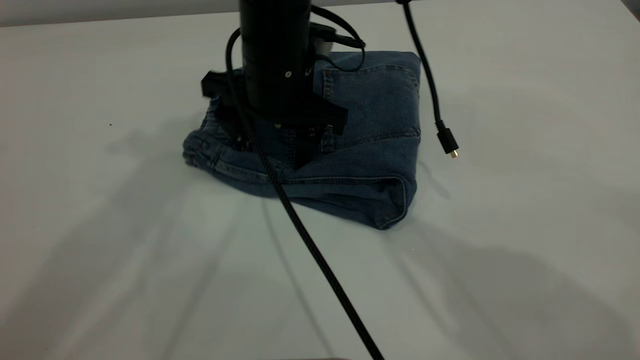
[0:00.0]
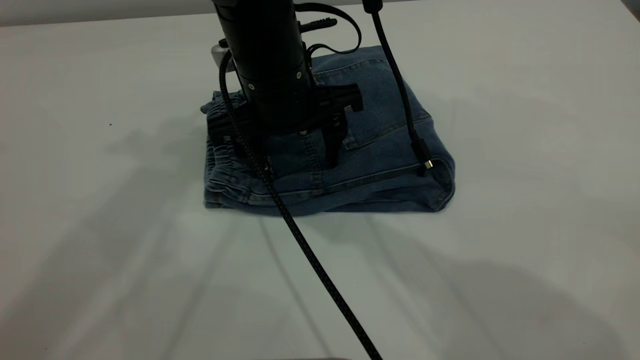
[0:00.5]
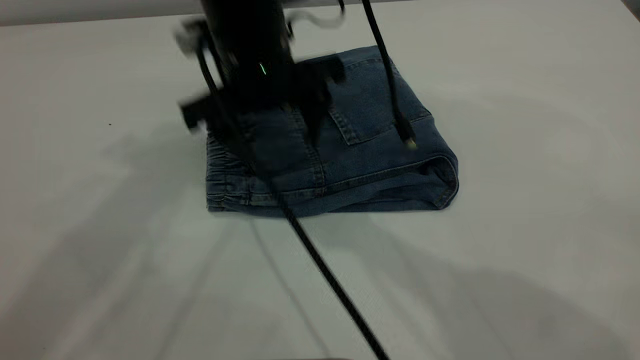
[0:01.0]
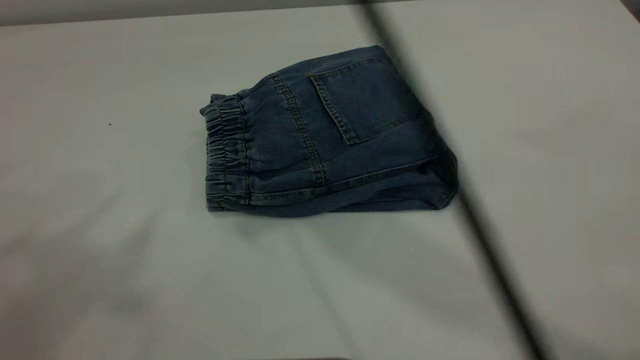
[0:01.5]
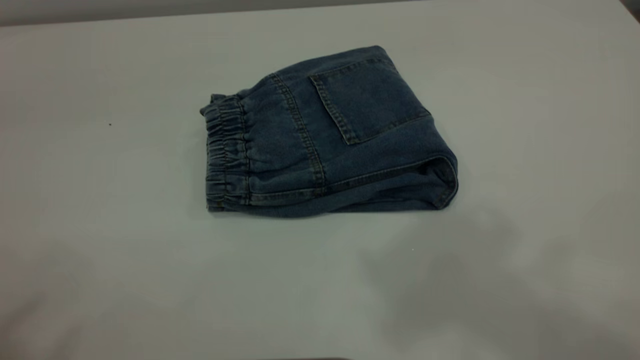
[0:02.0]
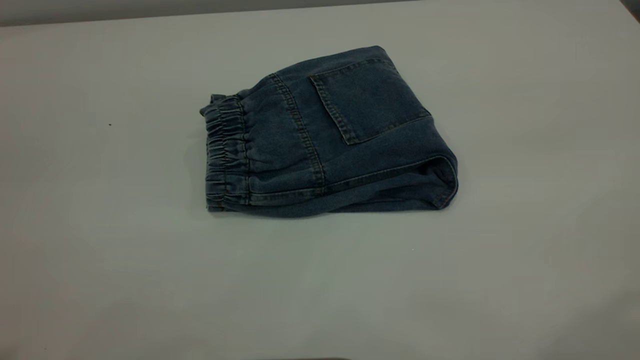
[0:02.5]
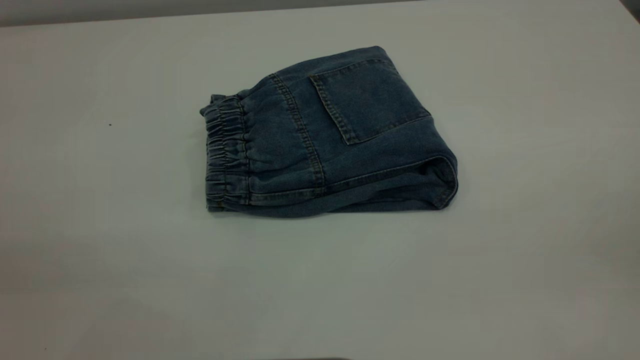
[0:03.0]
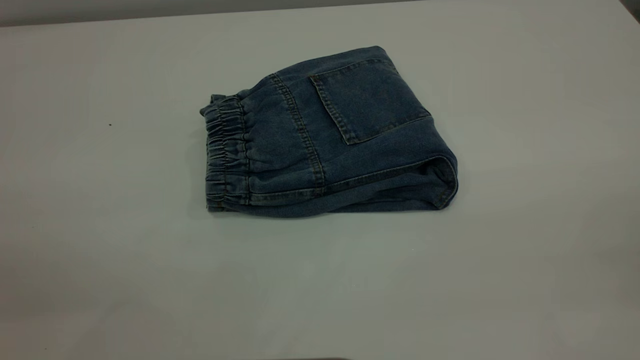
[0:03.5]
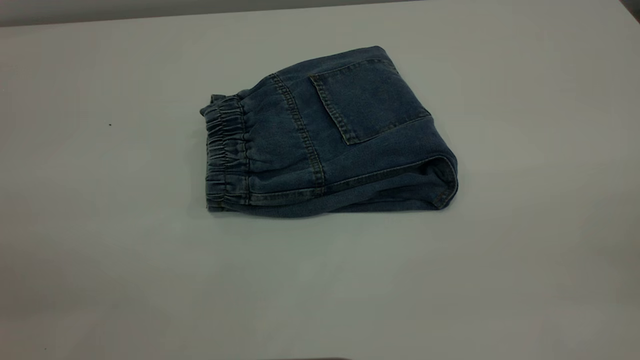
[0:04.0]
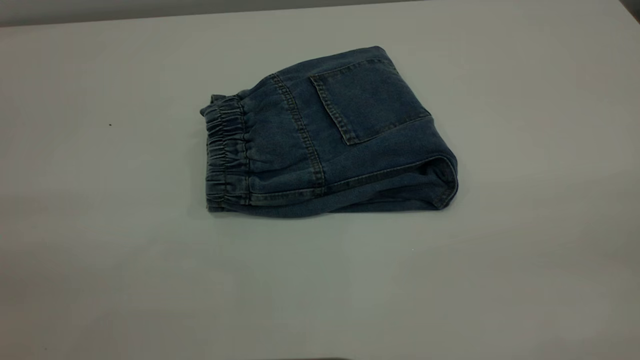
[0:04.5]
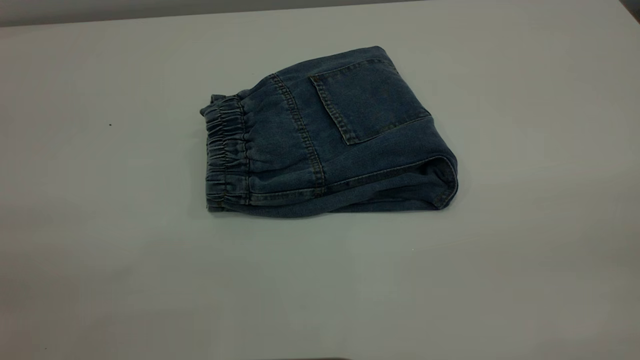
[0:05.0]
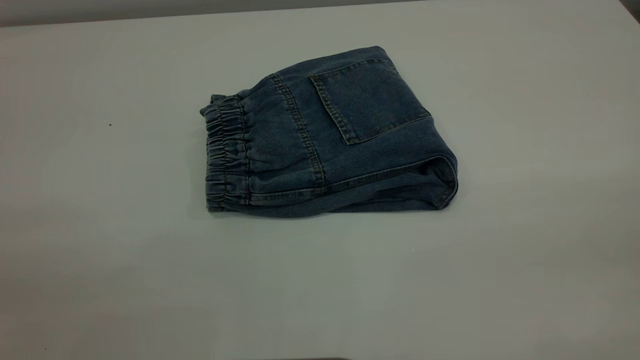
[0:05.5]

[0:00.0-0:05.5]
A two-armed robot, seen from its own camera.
0.0 to 2.0 s: The right gripper heads upward and backward, covering some 40 cm. The left gripper shifts approximately 25 cm backward and upward.

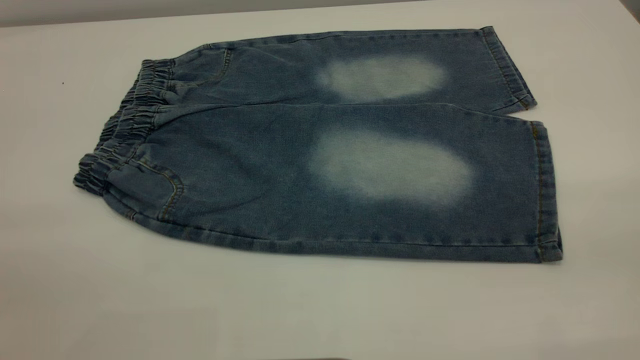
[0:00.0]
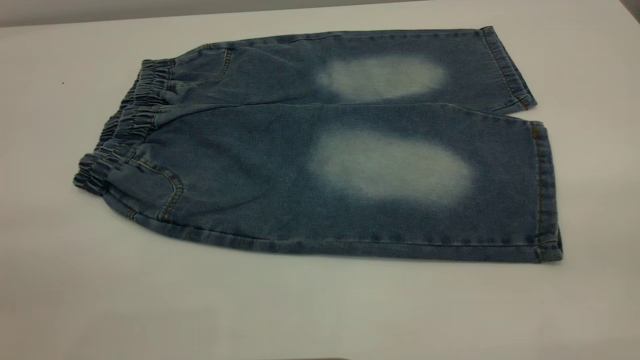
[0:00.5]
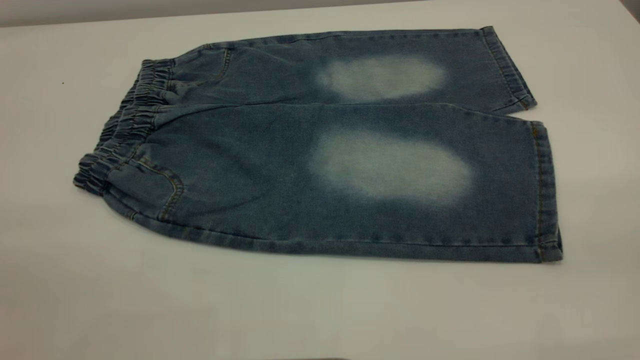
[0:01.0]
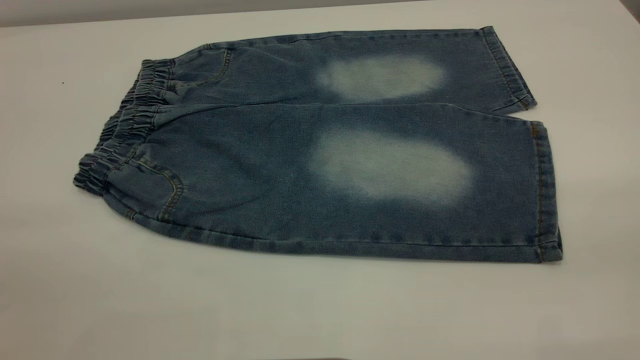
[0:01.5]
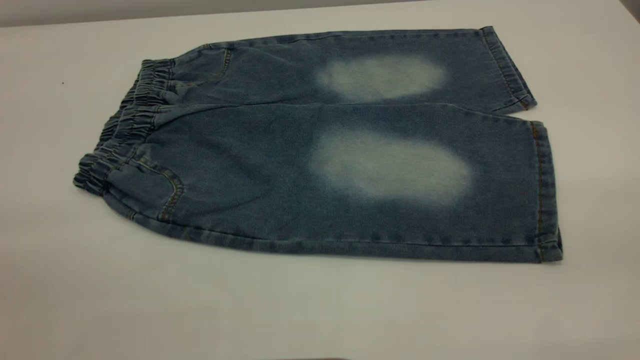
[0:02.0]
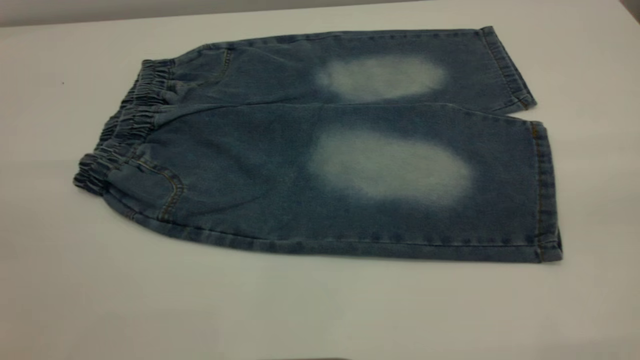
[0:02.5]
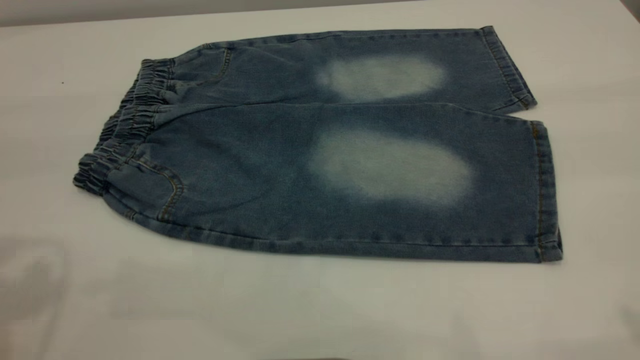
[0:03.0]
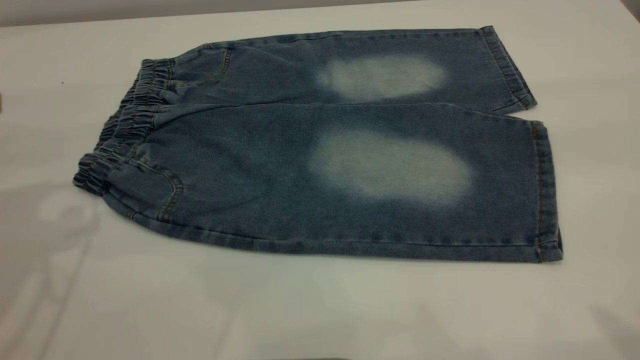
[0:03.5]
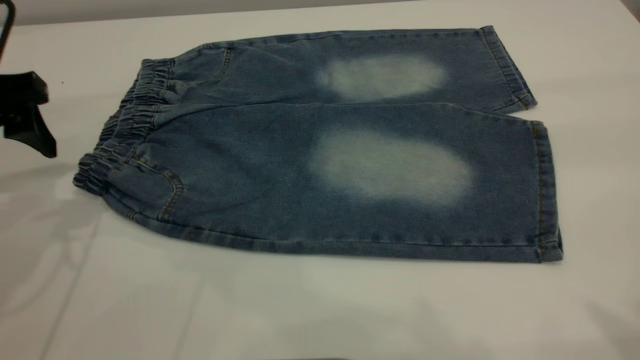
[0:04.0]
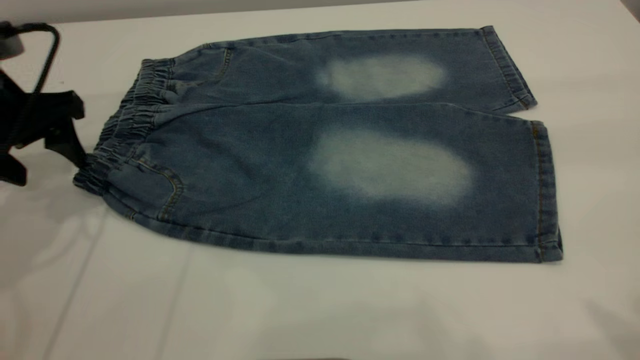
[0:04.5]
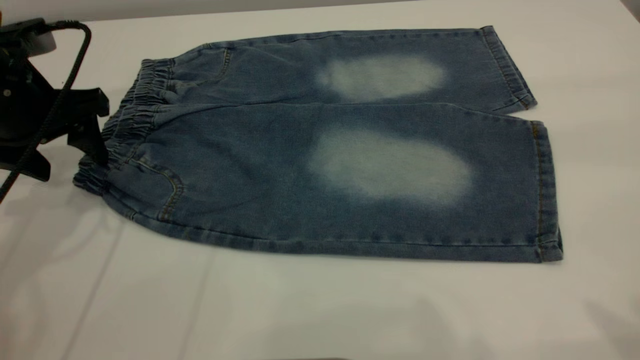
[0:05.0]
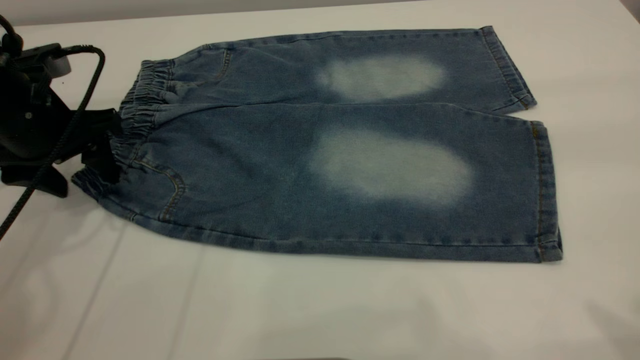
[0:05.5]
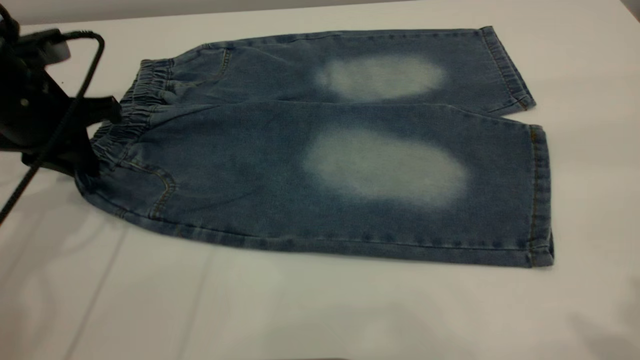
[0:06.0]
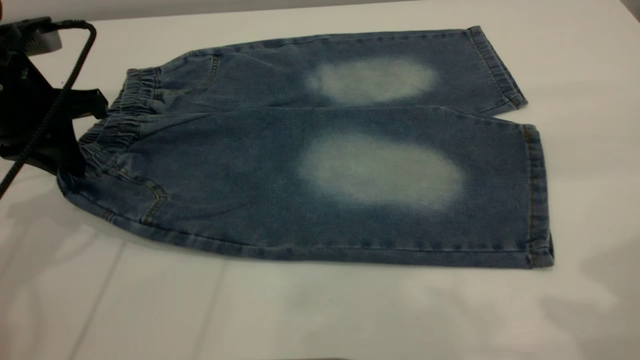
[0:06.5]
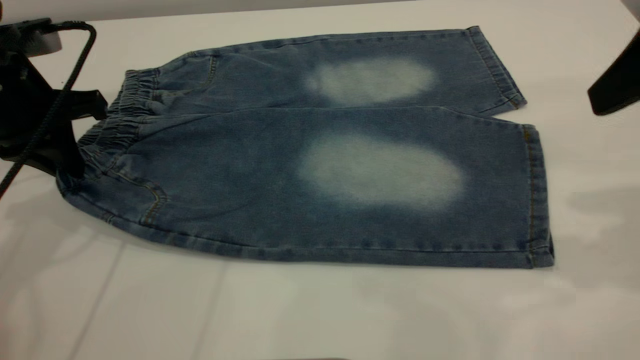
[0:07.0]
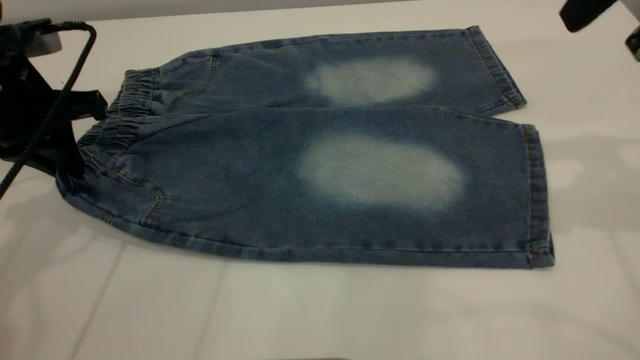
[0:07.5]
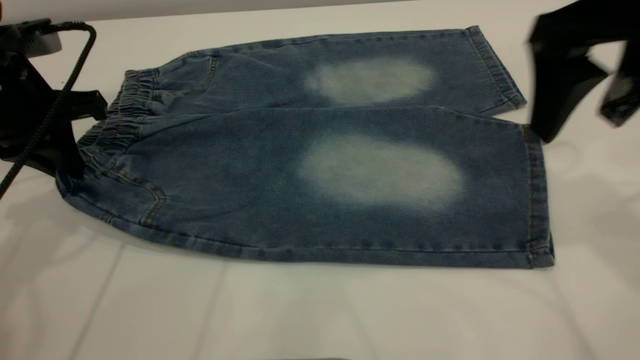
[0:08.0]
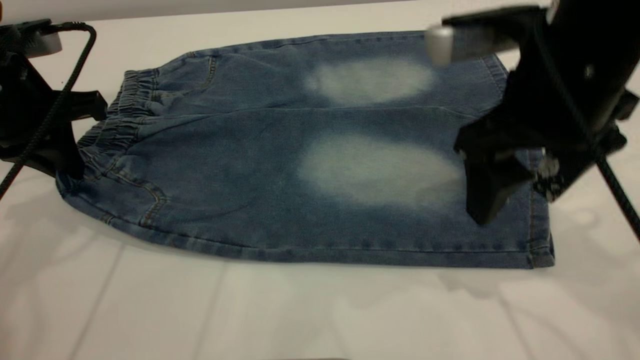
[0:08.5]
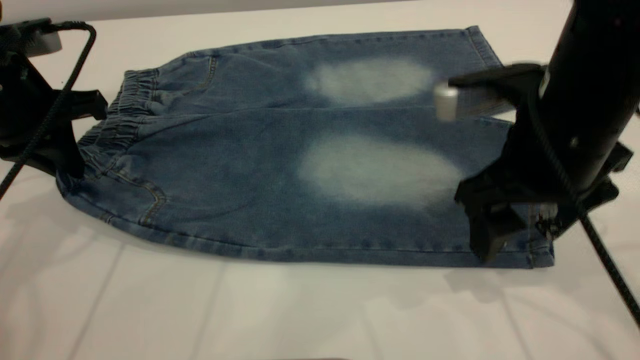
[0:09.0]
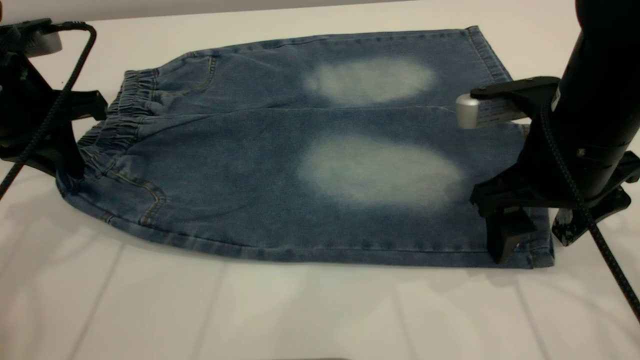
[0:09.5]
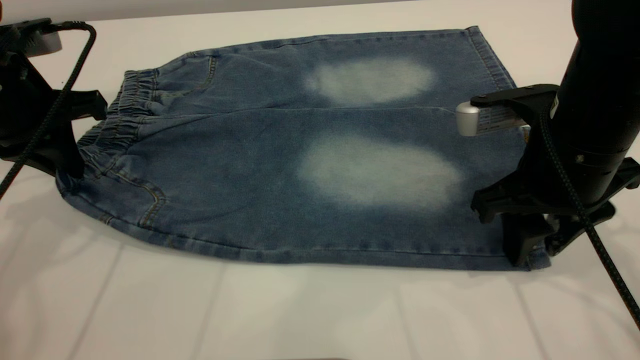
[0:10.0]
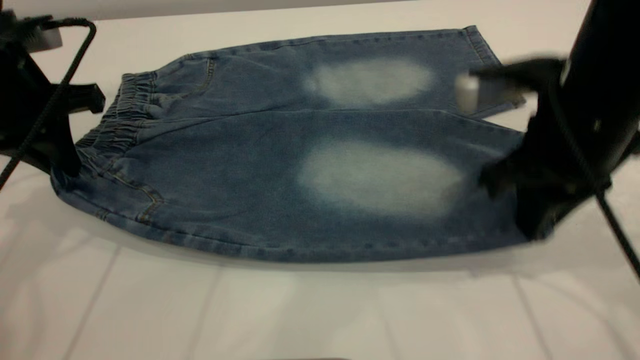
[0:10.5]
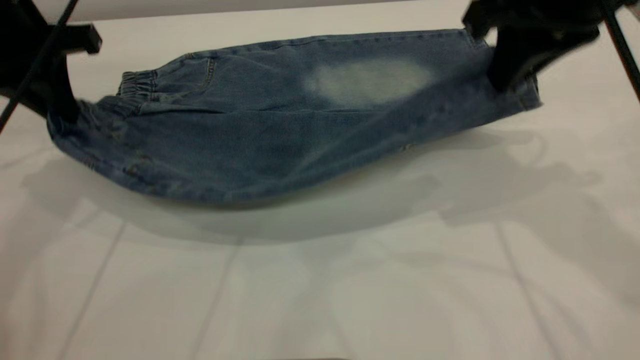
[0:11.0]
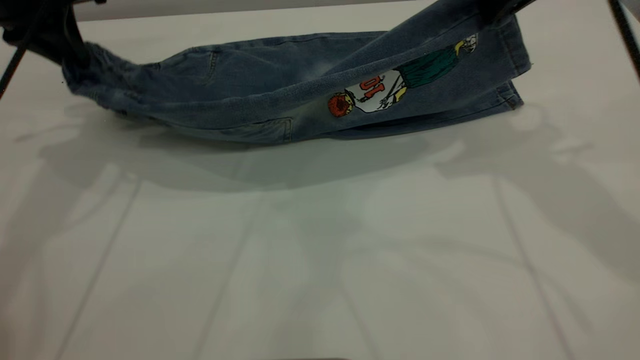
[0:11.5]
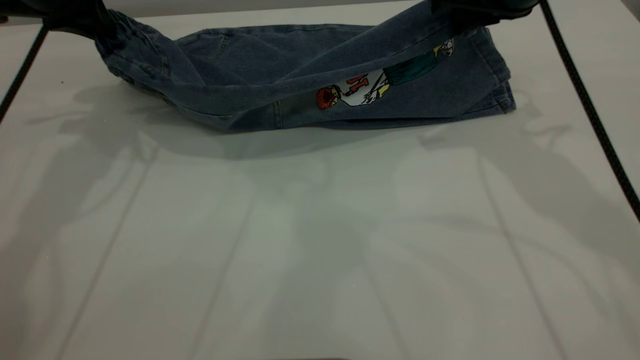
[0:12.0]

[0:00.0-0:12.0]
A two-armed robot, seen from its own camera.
0.0 to 2.0 s: The two grippers keep their place.
2.0 to 4.0 s: The left gripper shifts about 35 cm forward and downward.
4.0 to 6.0 s: The left gripper moves approximately 5 cm, and closes.
6.0 to 8.0 s: The right gripper goes some 20 cm forward and downward.
8.0 to 10.0 s: The right gripper travels downward by about 15 cm, and closes.
10.0 to 12.0 s: The grippers both shift forward and upward by roughly 15 cm. The right gripper closes.

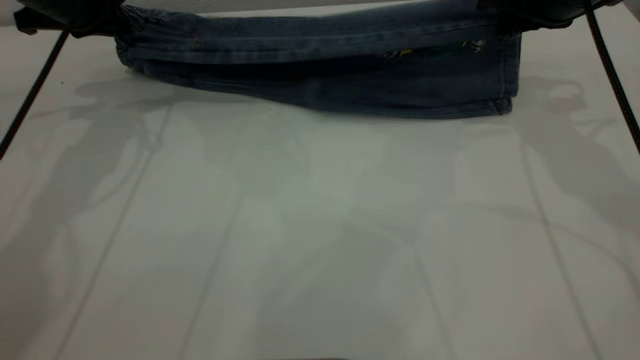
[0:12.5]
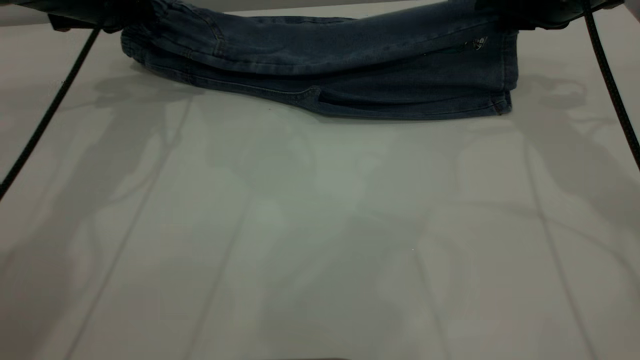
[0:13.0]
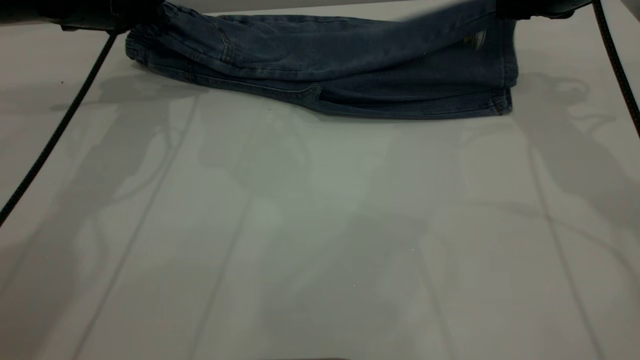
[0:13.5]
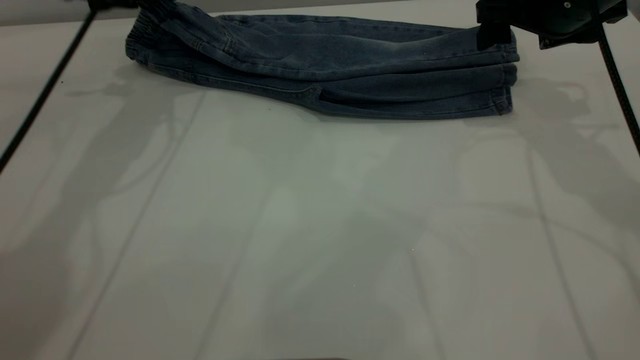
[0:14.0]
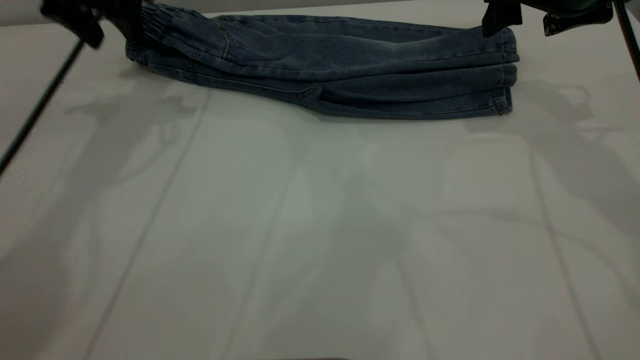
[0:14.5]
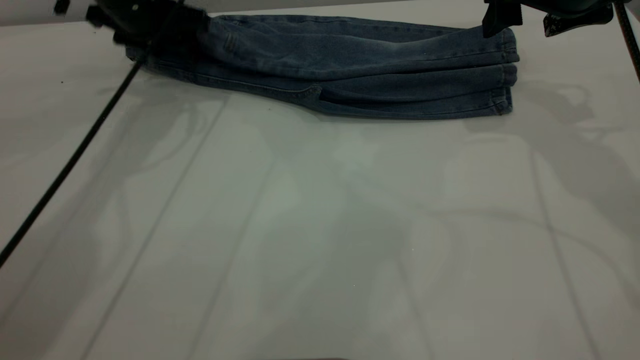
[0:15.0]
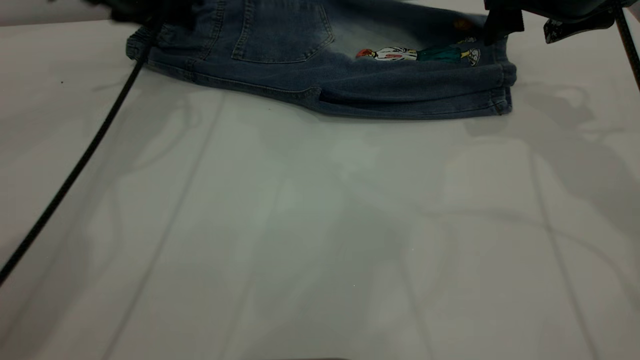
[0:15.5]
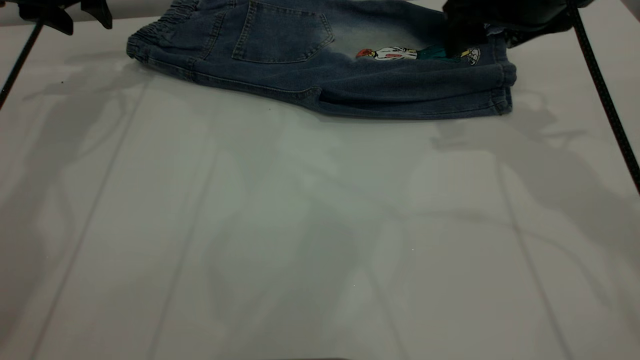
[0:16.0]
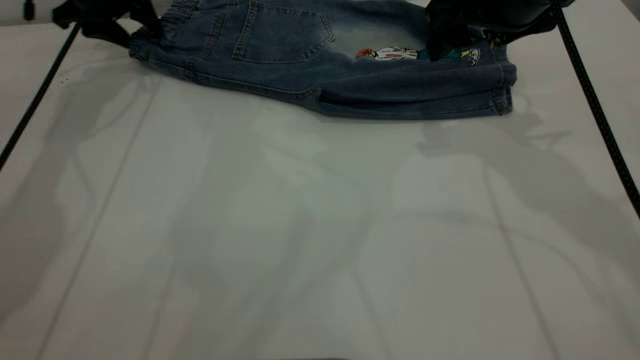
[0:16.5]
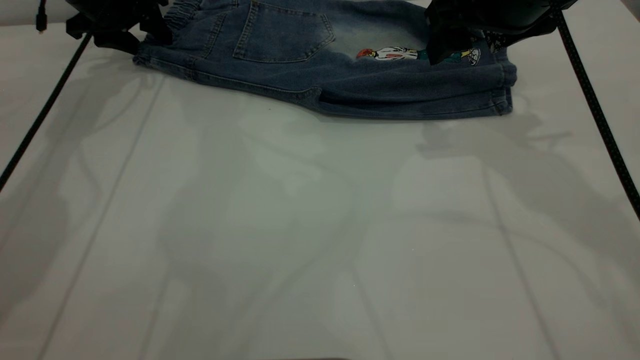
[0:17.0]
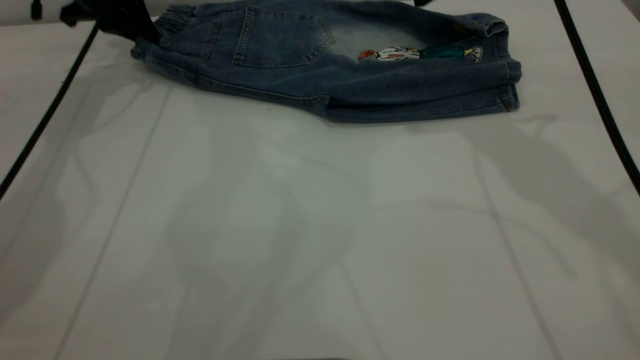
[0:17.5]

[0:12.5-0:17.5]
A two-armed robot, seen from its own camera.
12.5 to 15.0 s: The right gripper opens up. Meanwhile the left gripper travels to the right by approximately 5 cm, and opens up.
15.0 to 17.5 s: The left gripper goes roughly 10 cm to the left and forward, and closes. Meanwhile the right gripper shifts roughly 5 cm to the left.
